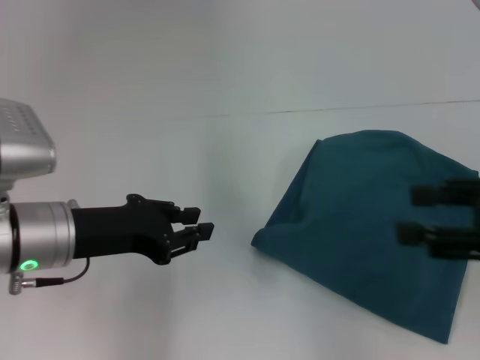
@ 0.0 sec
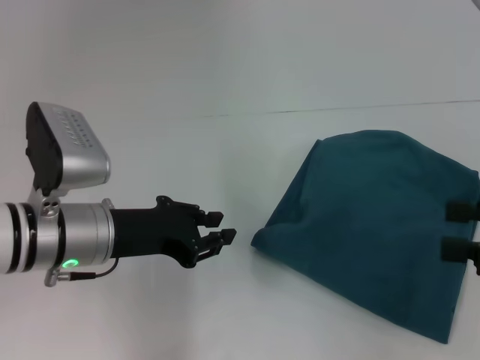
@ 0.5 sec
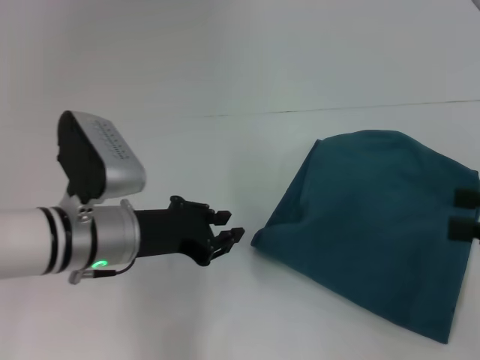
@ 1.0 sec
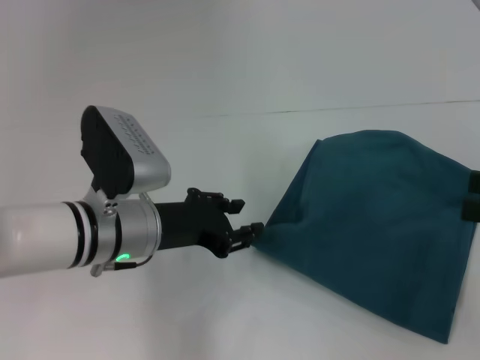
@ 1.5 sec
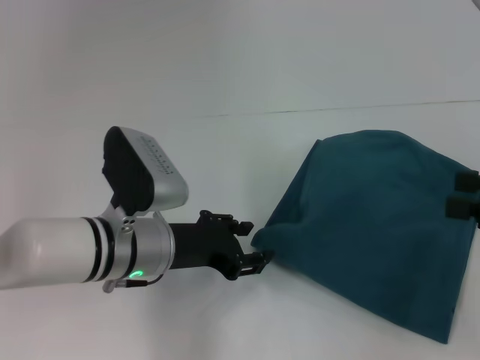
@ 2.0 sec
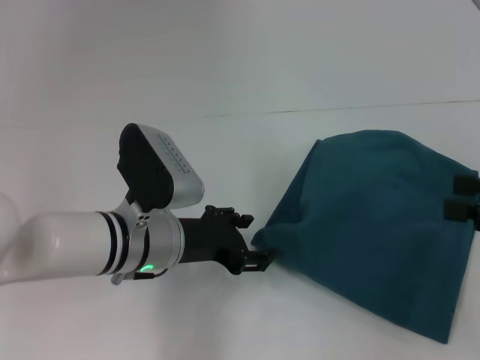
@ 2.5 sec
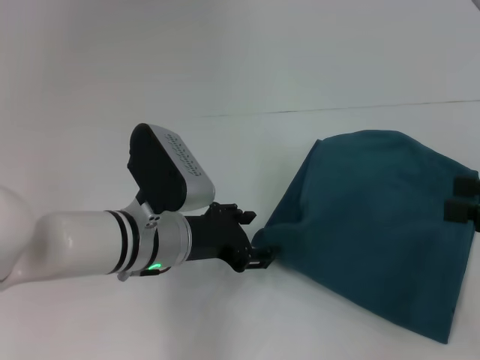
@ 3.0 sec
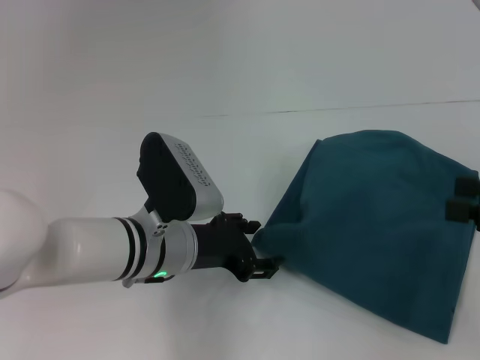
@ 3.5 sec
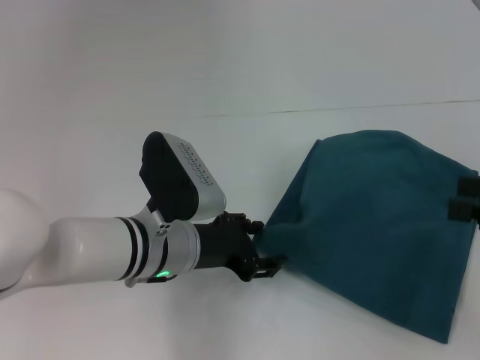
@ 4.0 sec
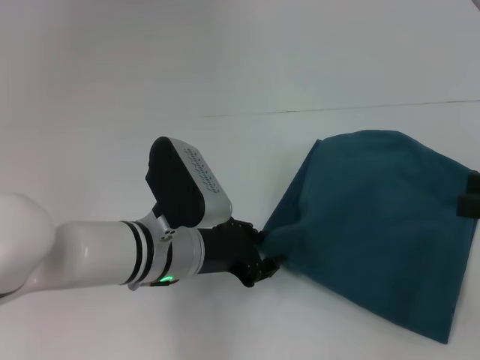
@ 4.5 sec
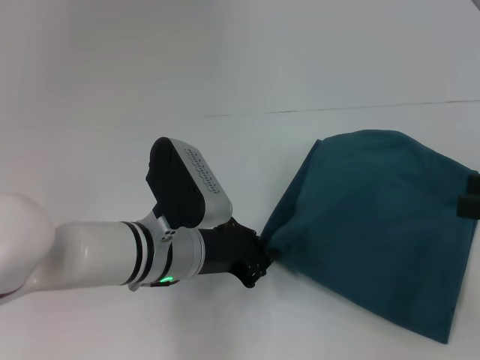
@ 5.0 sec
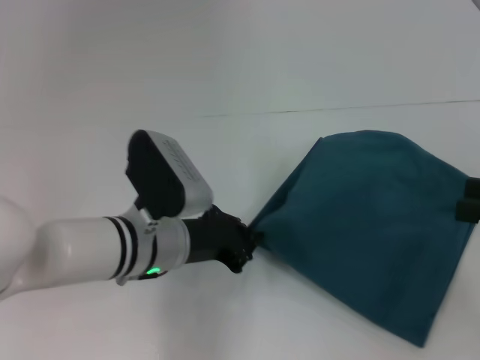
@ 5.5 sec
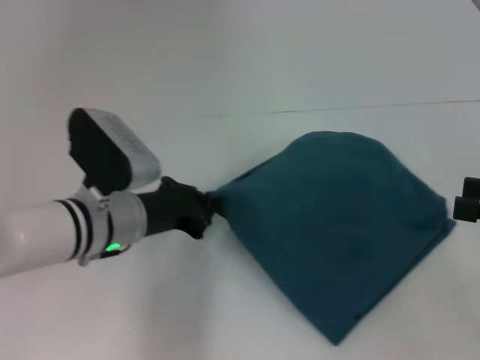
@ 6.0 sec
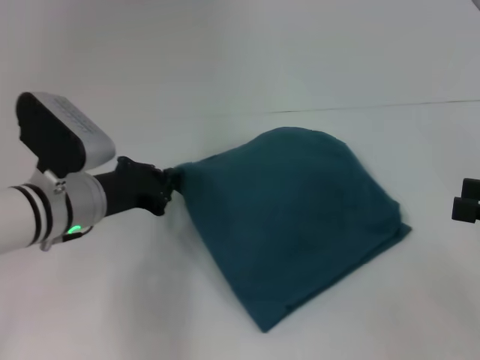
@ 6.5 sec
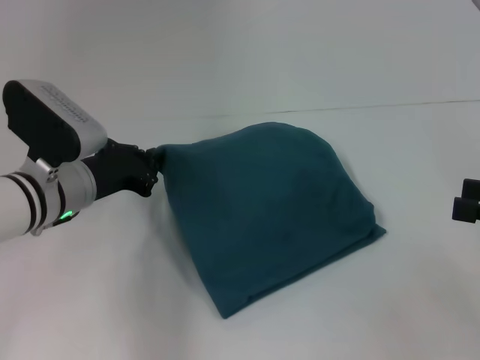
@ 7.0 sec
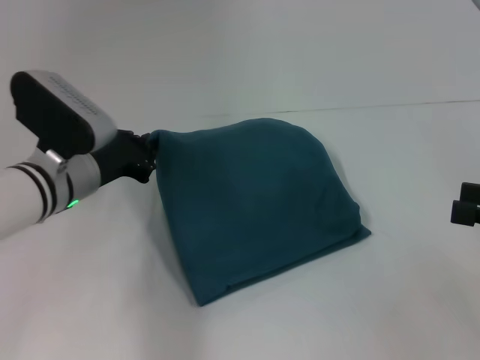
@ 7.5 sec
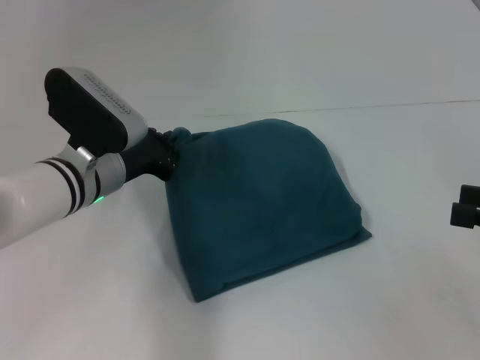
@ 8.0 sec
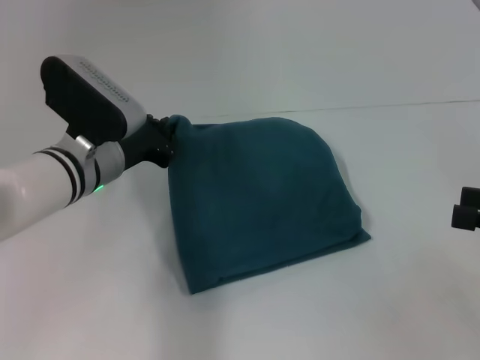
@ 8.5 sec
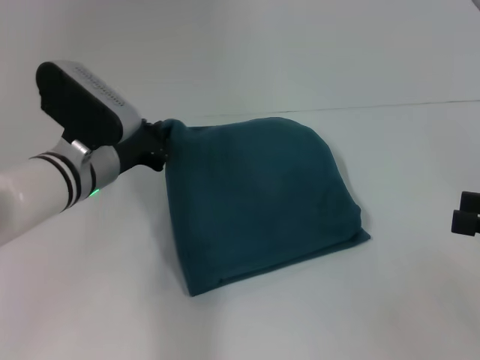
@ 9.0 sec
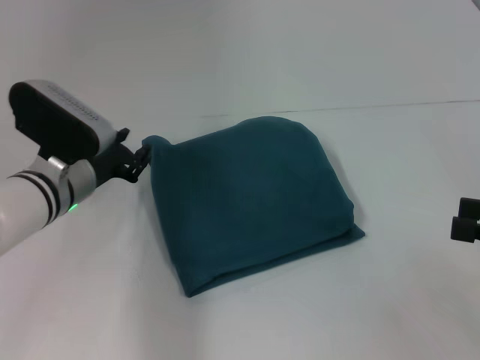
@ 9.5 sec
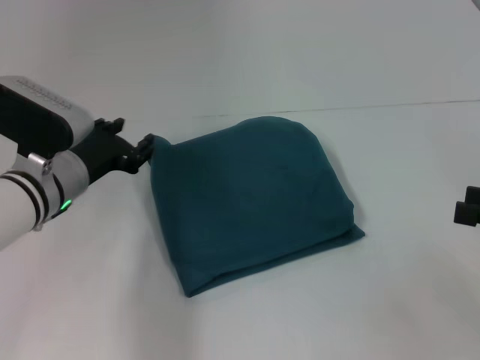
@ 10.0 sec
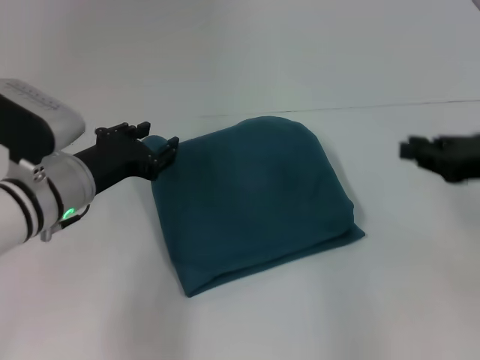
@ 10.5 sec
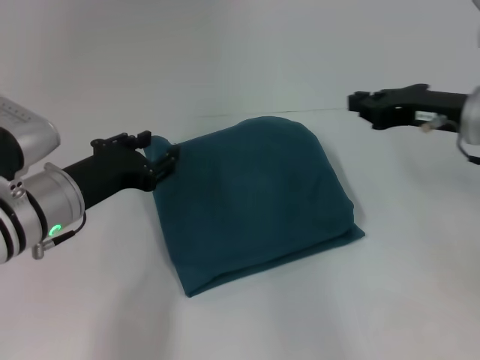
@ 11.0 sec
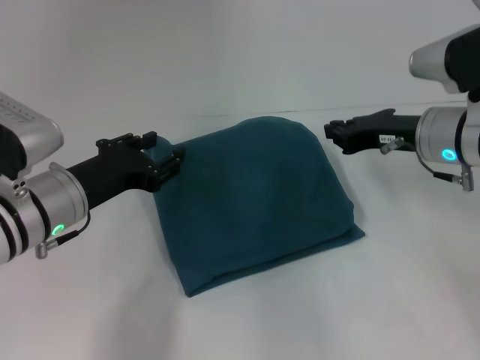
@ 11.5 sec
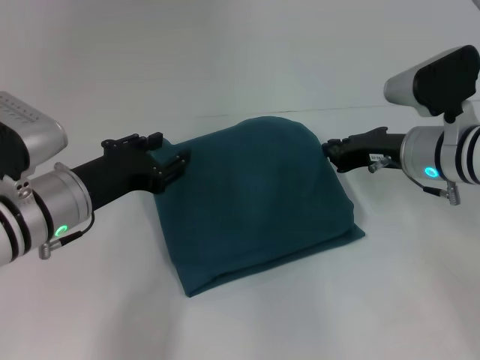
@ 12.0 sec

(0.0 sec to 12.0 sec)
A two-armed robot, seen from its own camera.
0.0 sec - 2.0 sec: The left gripper goes about 10 cm to the right and downward, while the right gripper ends up roughly 5 cm from where it was.
2.0 sec - 4.0 sec: The grippers move only a little.
4.0 sec - 6.0 sec: The left gripper goes approximately 5 cm to the left, and closes.
8.0 sec - 10.0 sec: The left gripper opens up.
10.0 sec - 12.0 sec: The right gripper moves forward and to the left, some 20 cm, and closes up.

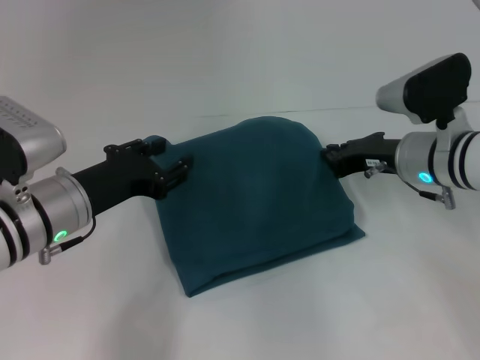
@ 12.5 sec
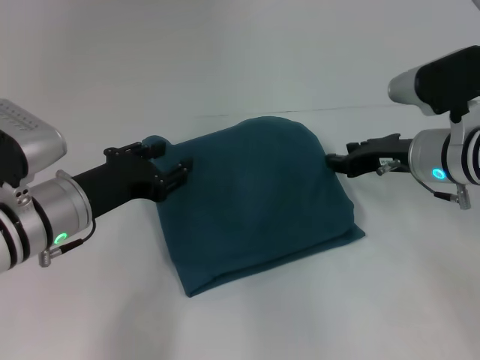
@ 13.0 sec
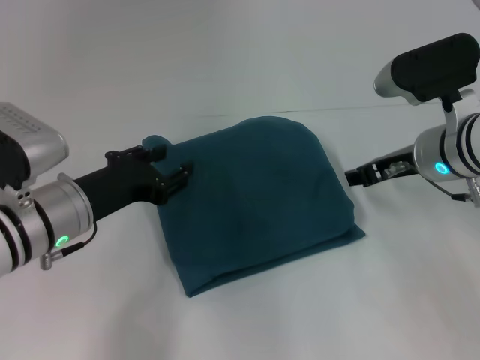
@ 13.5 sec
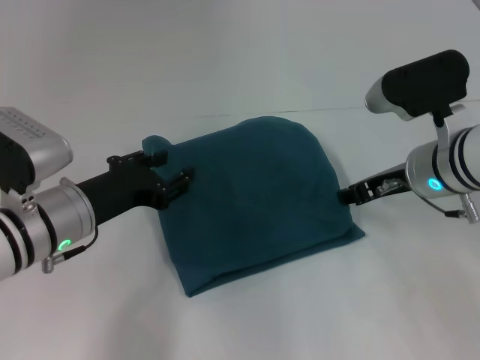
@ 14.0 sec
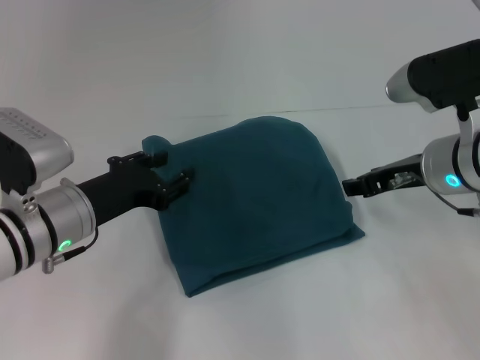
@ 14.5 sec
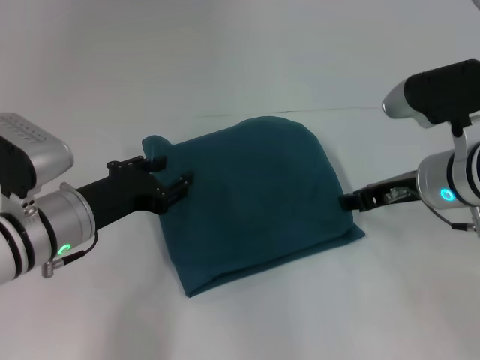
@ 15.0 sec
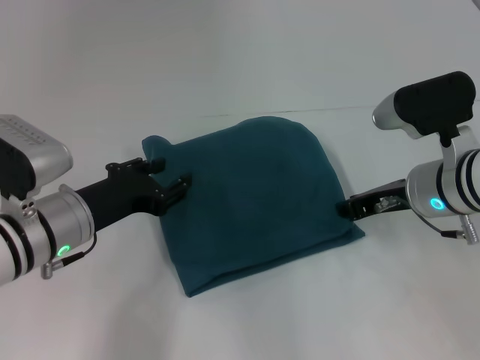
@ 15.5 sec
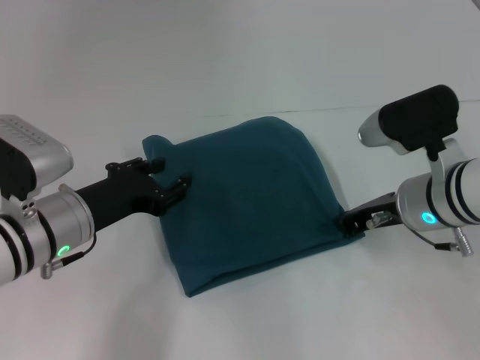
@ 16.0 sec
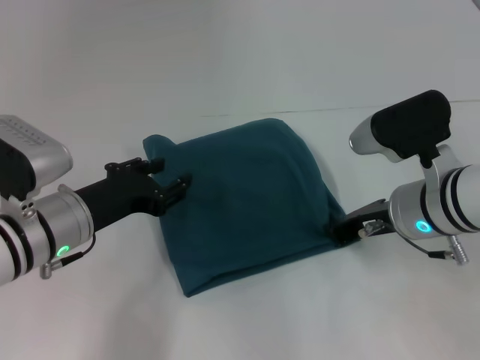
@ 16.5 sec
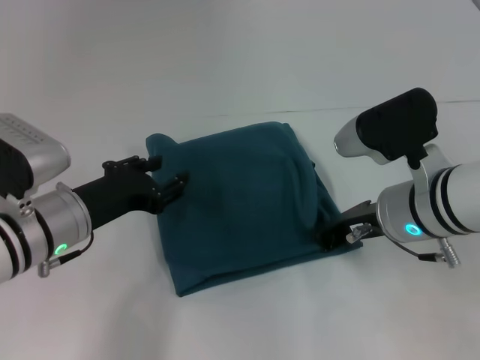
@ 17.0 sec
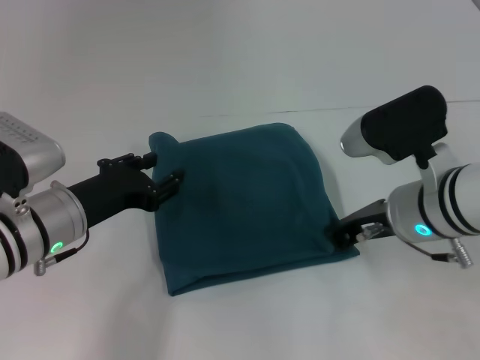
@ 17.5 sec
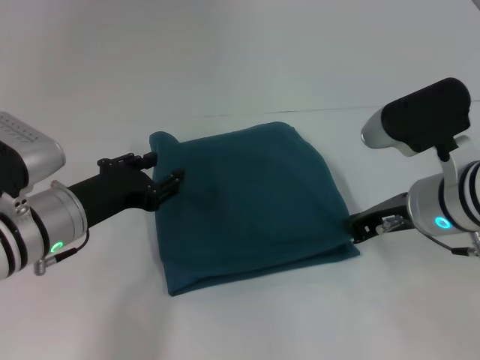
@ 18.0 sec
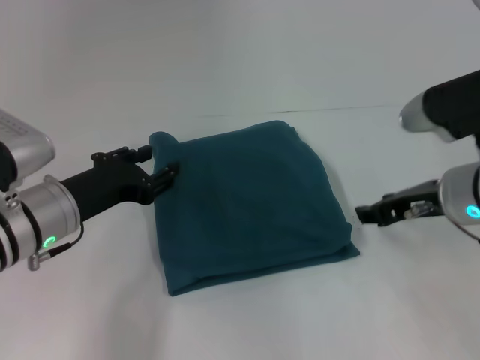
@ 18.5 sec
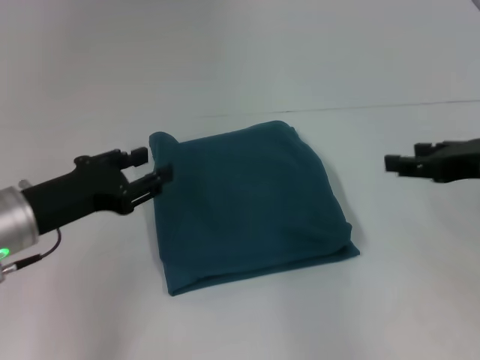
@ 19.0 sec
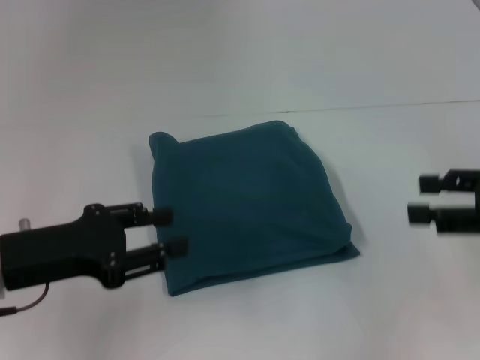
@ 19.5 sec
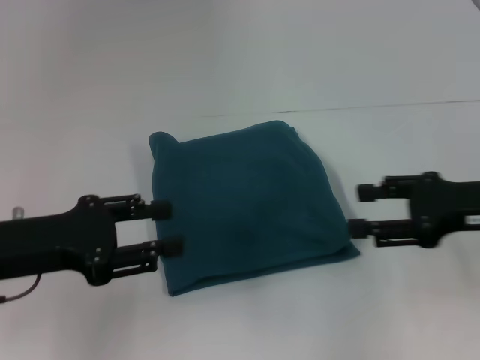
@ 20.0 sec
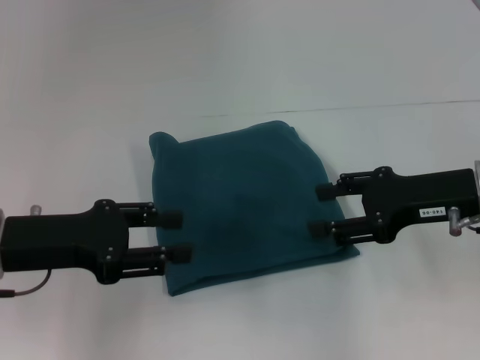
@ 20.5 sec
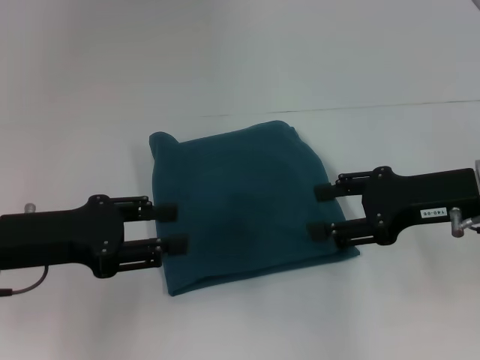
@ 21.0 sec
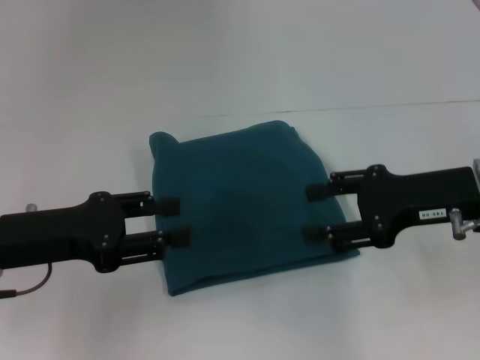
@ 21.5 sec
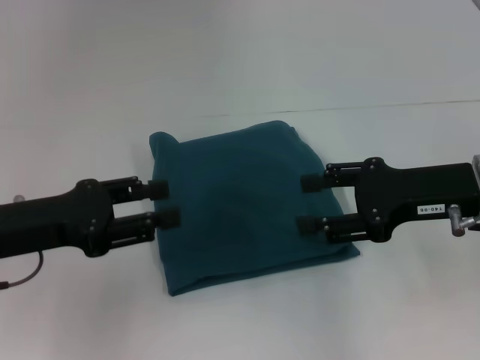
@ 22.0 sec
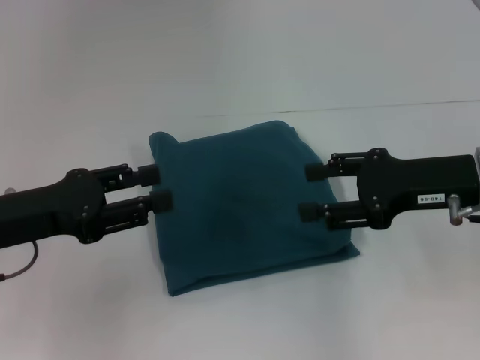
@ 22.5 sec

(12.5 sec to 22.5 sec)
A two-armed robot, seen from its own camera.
12.5 sec - 14.5 sec: The right gripper shifts by about 5 cm, and opens.
14.5 sec - 16.5 sec: The right gripper closes its fingers.
16.5 sec - 18.5 sec: The right gripper opens its fingers.
18.5 sec - 20.5 sec: The right gripper opens up; the left gripper changes place by approximately 5 cm.
20.5 sec - 22.5 sec: There are only small adjustments of the grippers.

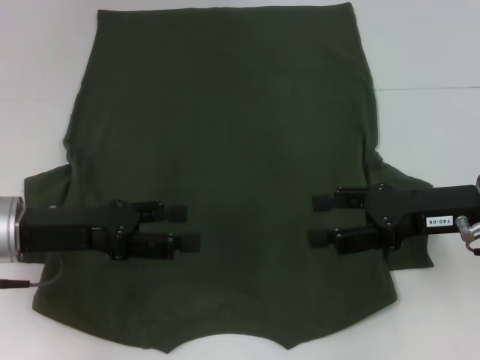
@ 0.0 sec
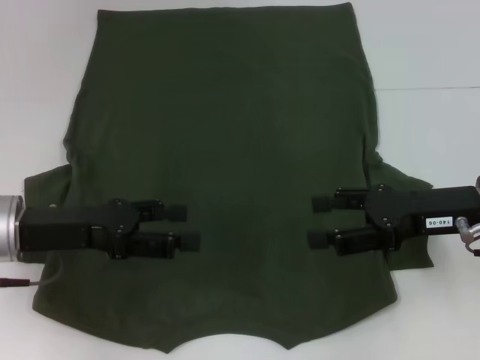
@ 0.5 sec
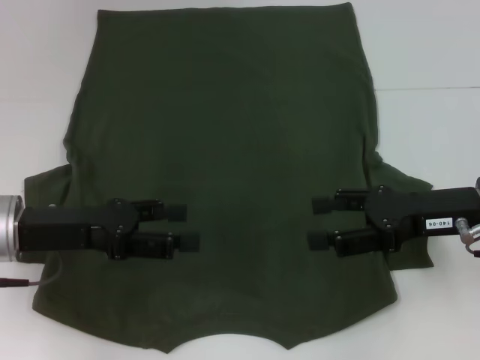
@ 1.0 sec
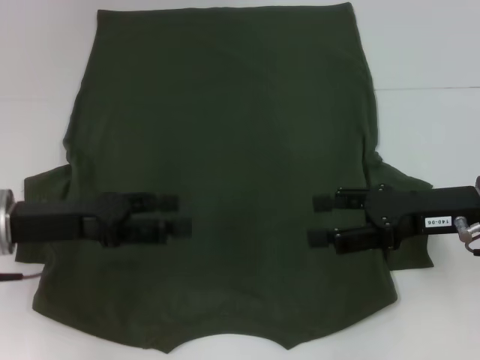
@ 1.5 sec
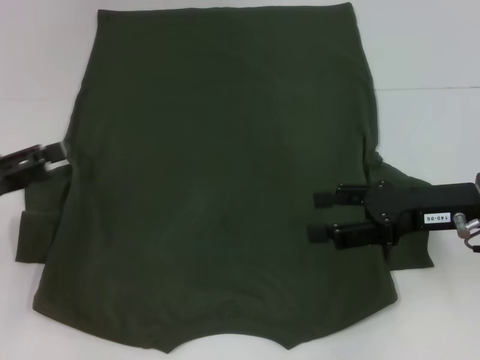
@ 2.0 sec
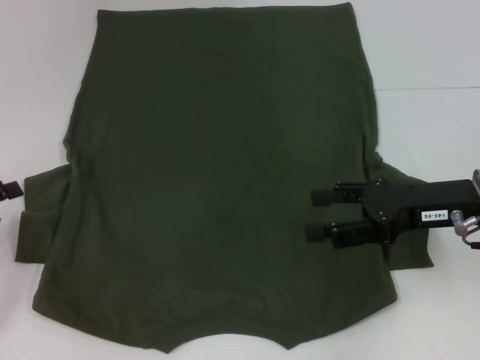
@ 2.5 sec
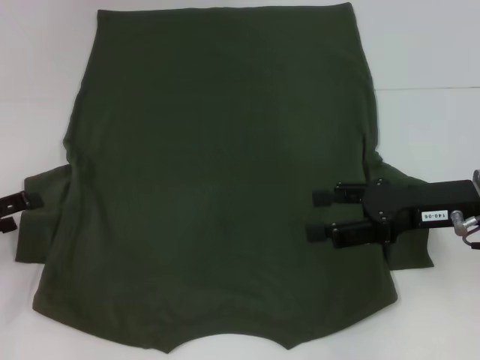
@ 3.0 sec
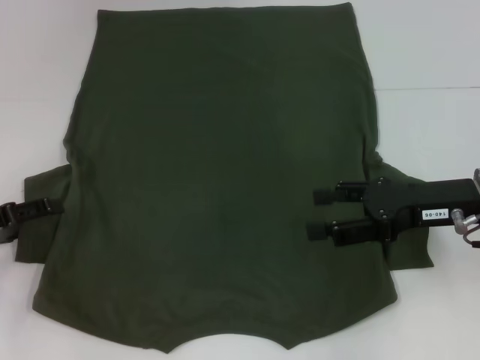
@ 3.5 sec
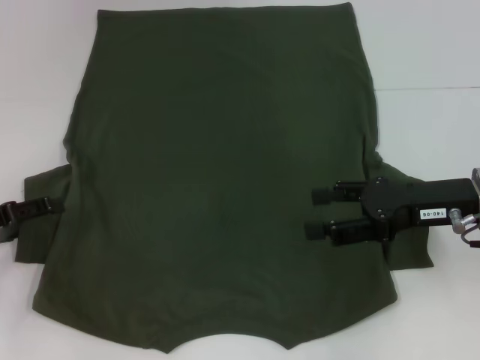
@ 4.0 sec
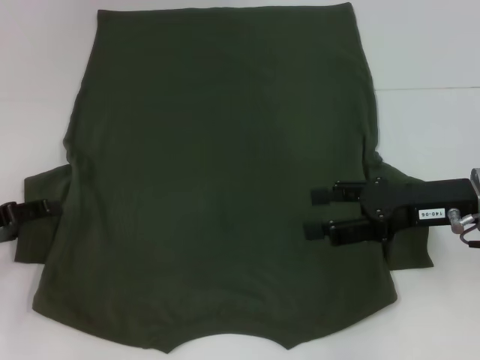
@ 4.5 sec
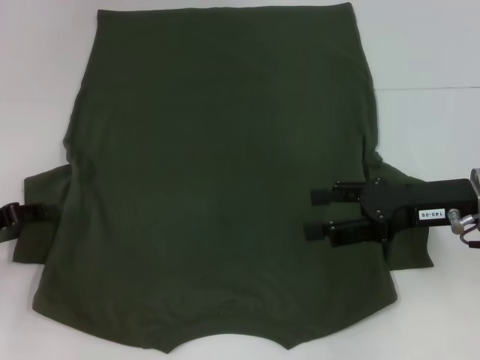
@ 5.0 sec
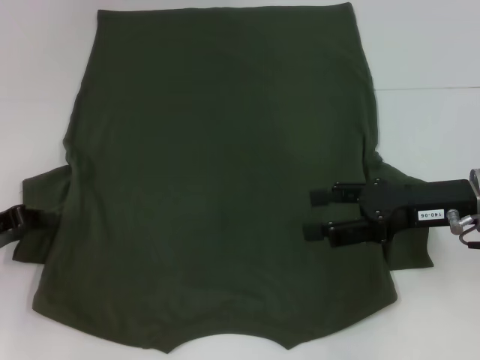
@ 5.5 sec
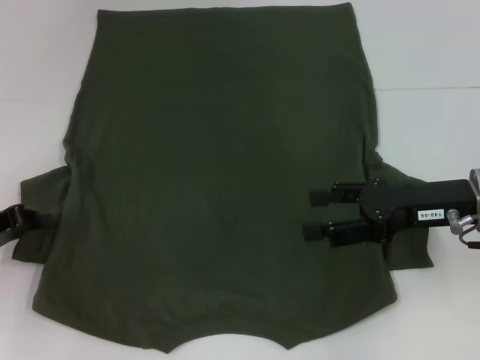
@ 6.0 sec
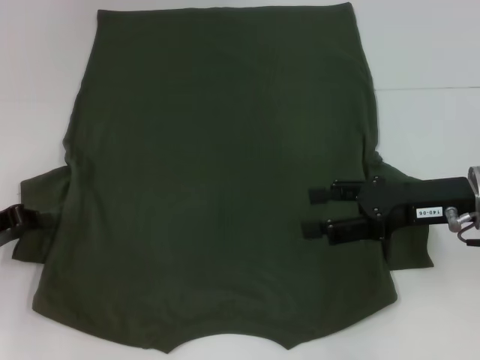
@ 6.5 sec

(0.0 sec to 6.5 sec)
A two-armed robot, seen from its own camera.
0.0 sec - 2.0 sec: The left gripper heads to the left, covering some 10 cm.
